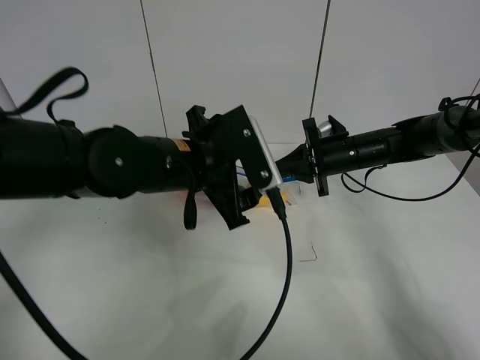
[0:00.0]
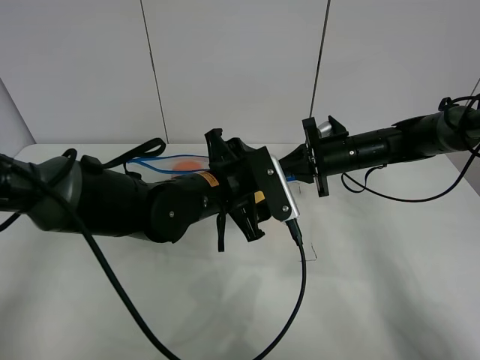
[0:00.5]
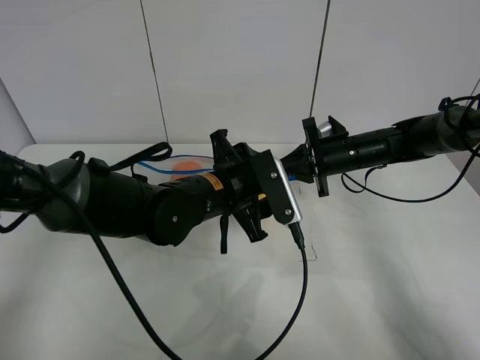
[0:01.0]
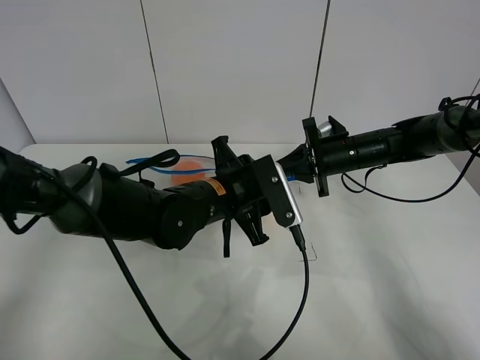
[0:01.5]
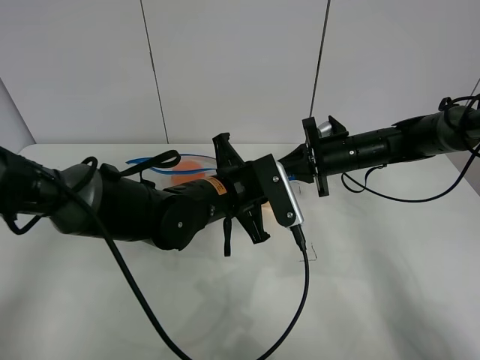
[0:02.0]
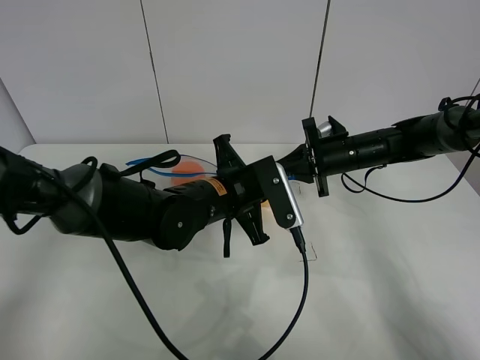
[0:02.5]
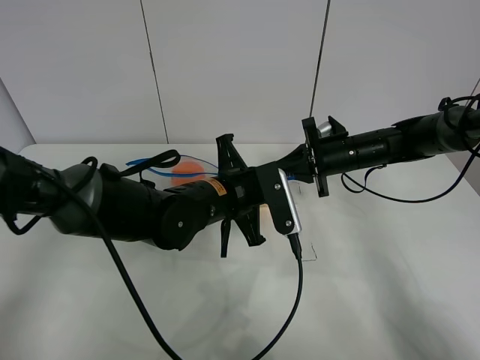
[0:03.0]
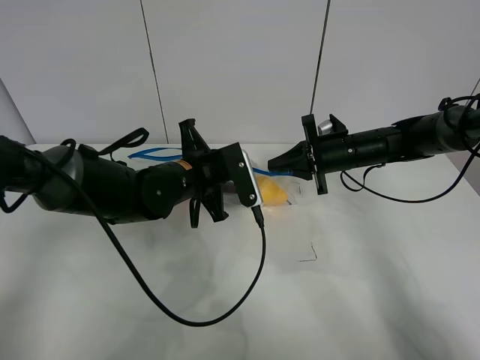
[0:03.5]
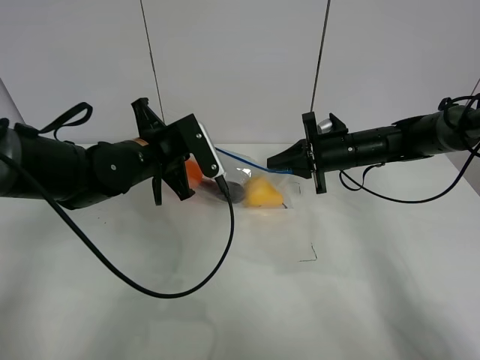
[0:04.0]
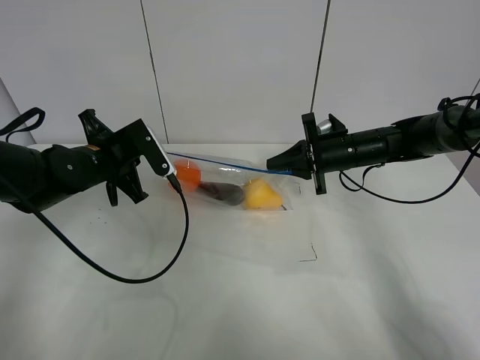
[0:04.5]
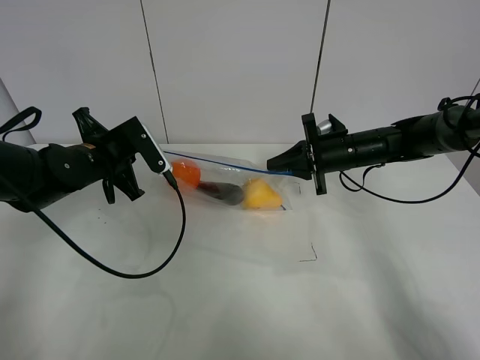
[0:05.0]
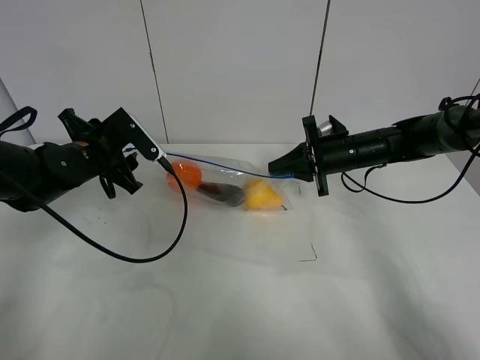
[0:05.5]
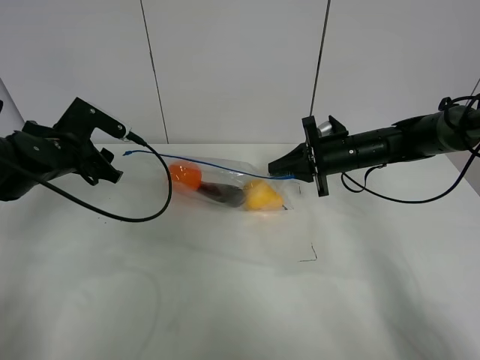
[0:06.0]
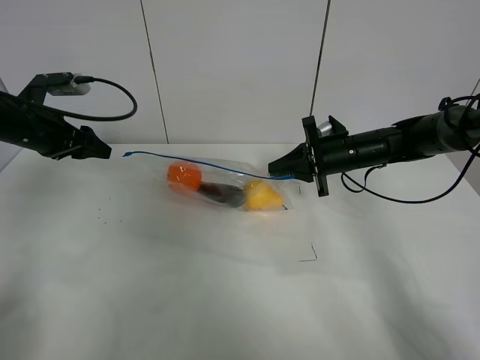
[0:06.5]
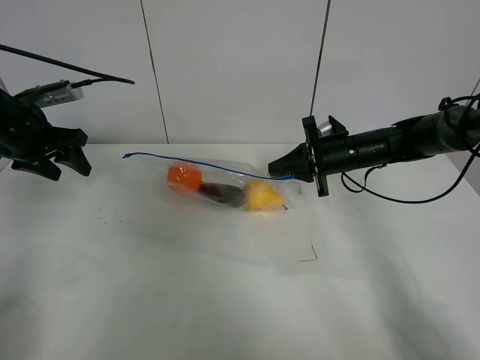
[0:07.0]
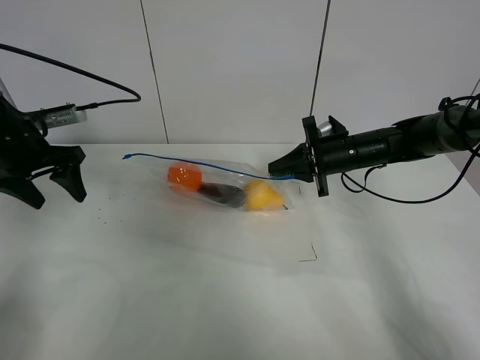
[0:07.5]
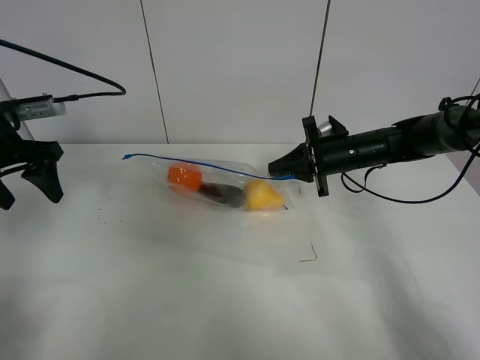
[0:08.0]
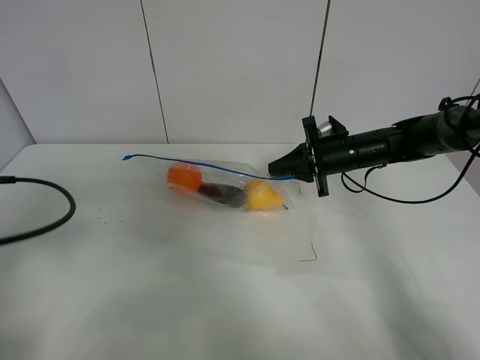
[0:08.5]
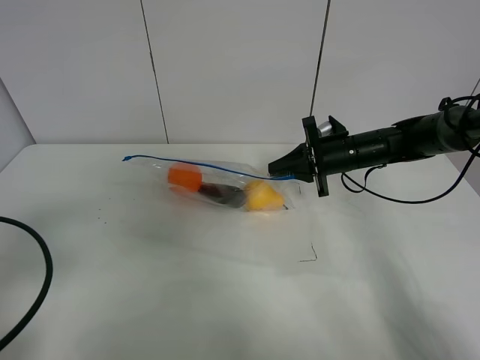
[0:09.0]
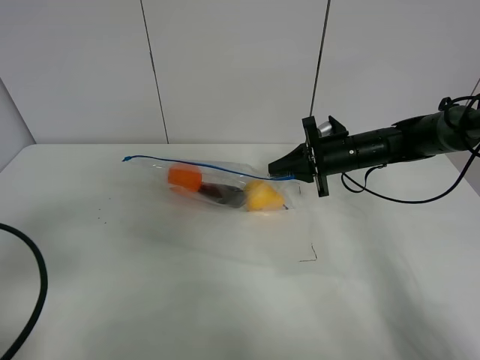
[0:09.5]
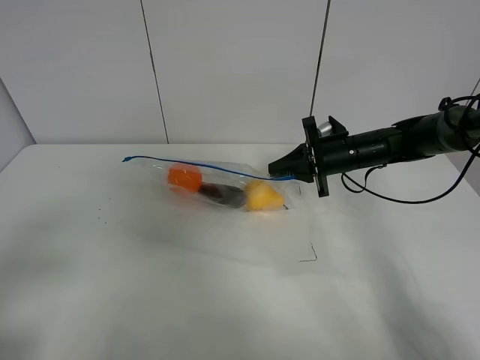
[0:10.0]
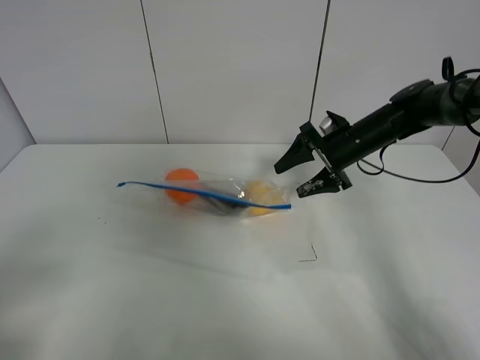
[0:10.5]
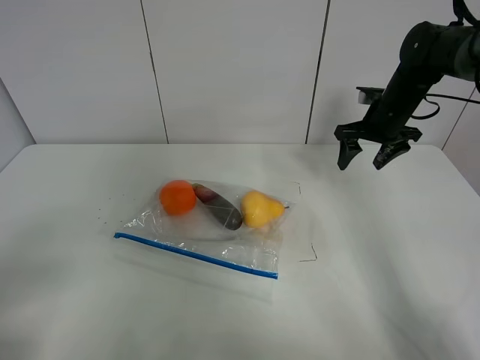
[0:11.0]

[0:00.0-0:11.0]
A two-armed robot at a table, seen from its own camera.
Step, 0:00.0 to 0:05.5: Pull the fruit bag with left gripper.
0:00.0 to 0:02.0: The left gripper is displaced downward by some 5 cm, and closes its fingers.
0:02.0 to 0:03.5: The left gripper travels to the left by about 5 cm.
0:03.5 to 0:05.5: The left gripper travels to the left by approximately 15 cm, and opens.
0:05.5 to 0:07.5: The left gripper goes roughly 10 cm to the left.
0:07.5 to 0:09.0: The left gripper travels backward by roughly 25 cm.
0:09.0 to 0:11.0: The right gripper shifts some 10 cm to the right and upward, and opens its fingers. The left gripper goes approximately 10 cm backward.

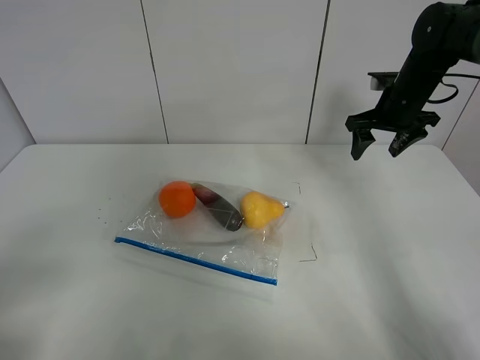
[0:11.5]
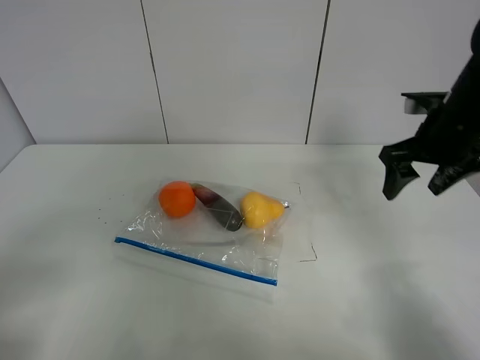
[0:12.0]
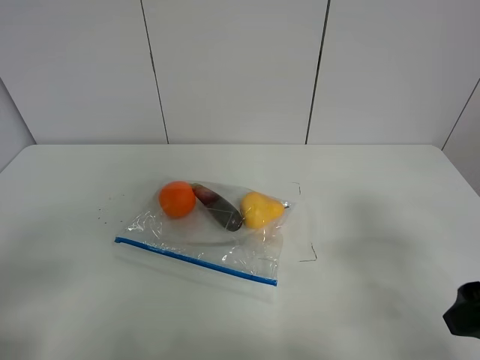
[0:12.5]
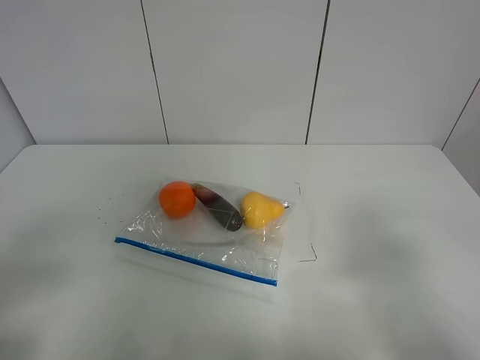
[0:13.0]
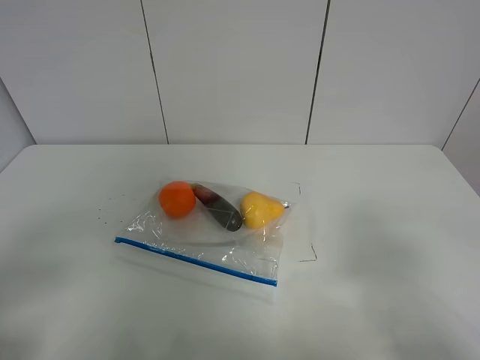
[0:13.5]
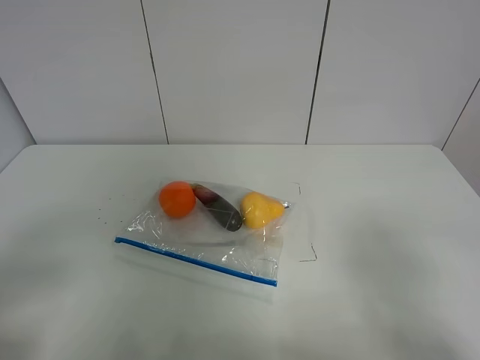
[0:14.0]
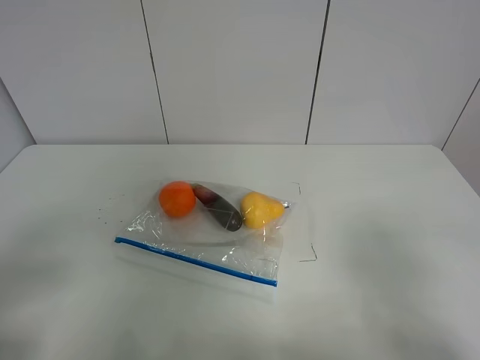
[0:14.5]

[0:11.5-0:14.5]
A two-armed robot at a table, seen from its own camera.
0:11.5 to 0:13.0: The right gripper goes some 40 cm backward.

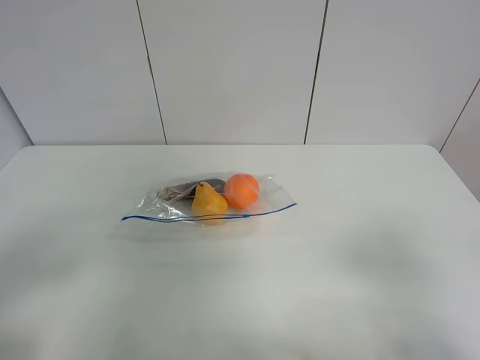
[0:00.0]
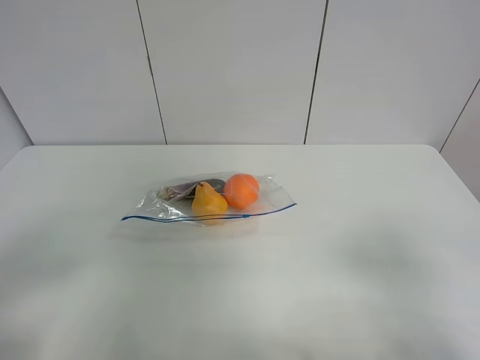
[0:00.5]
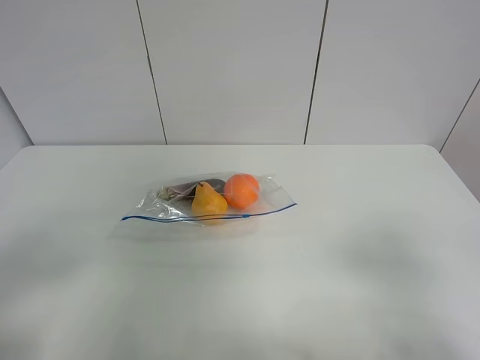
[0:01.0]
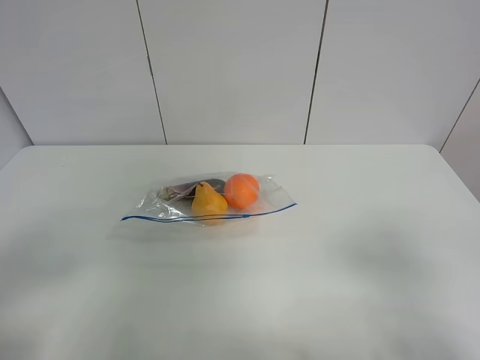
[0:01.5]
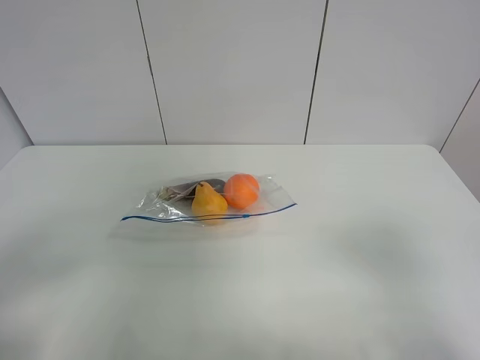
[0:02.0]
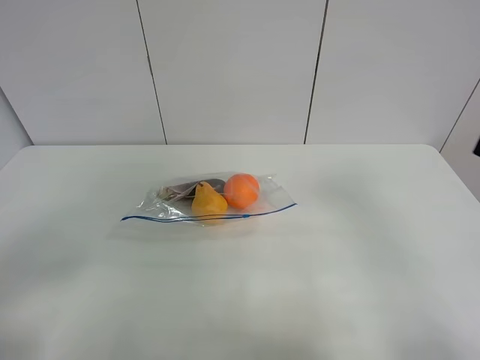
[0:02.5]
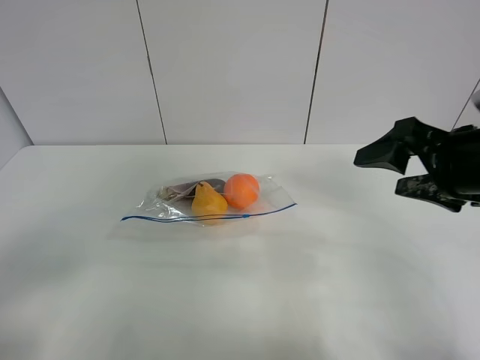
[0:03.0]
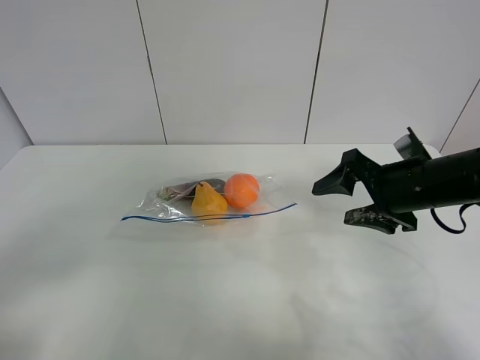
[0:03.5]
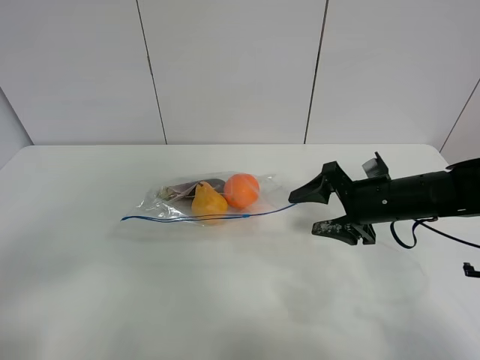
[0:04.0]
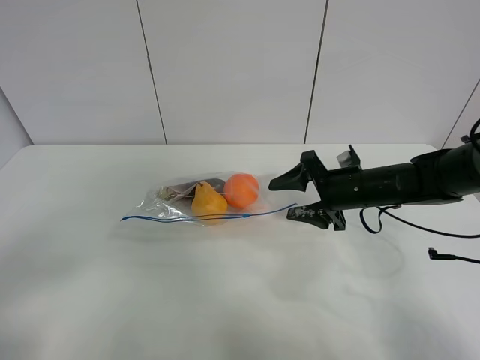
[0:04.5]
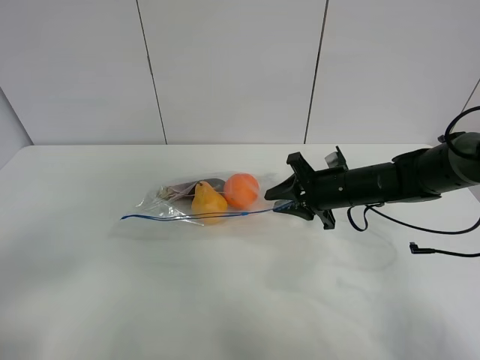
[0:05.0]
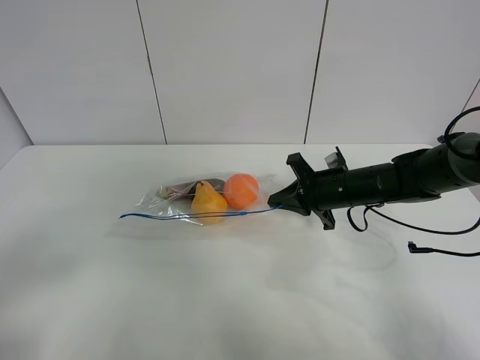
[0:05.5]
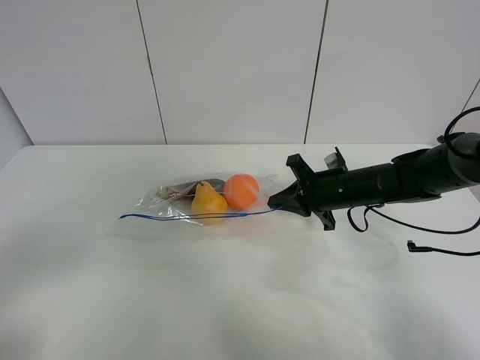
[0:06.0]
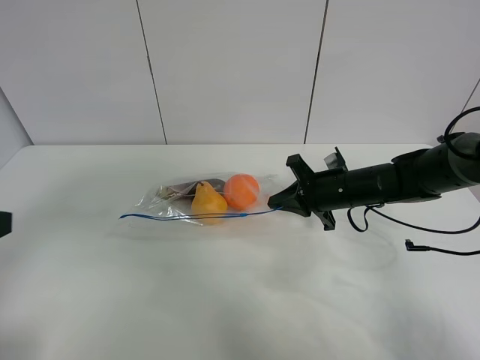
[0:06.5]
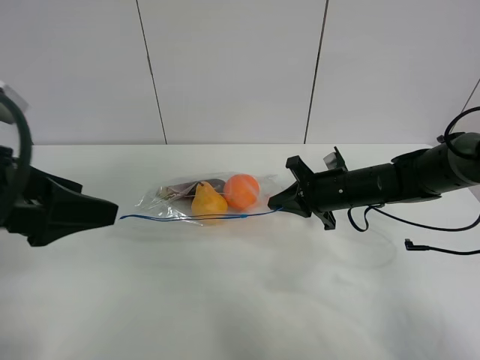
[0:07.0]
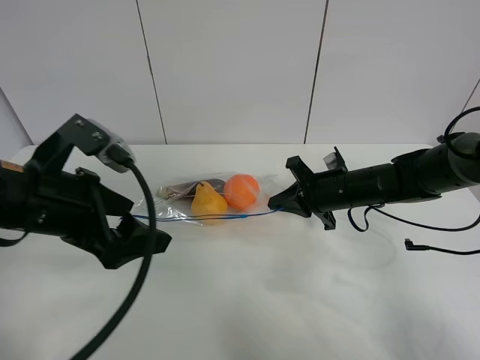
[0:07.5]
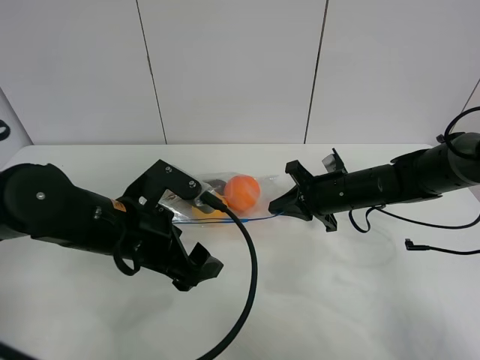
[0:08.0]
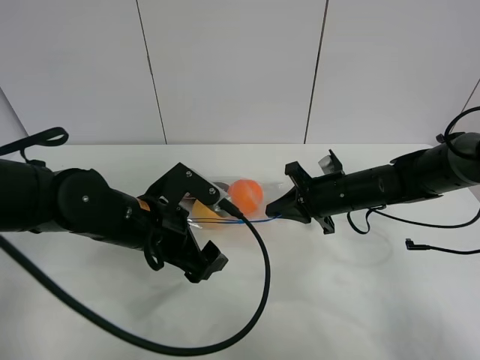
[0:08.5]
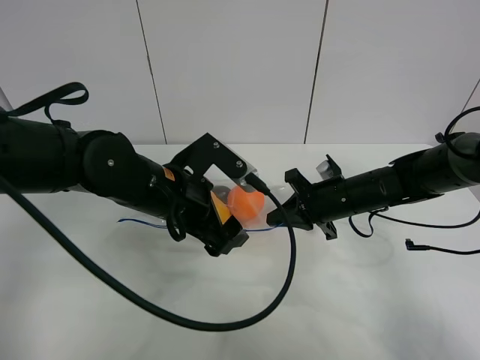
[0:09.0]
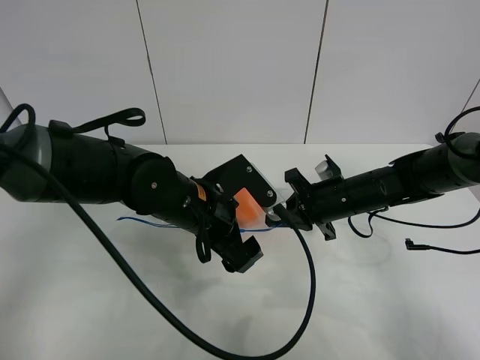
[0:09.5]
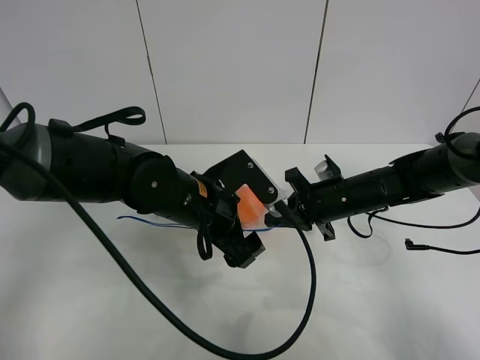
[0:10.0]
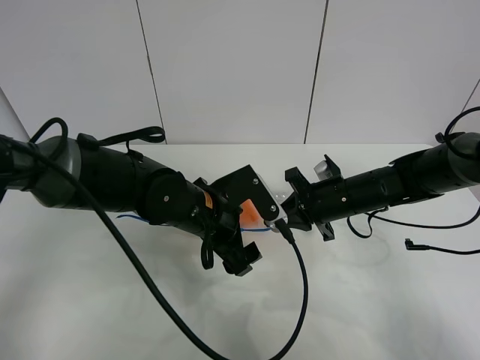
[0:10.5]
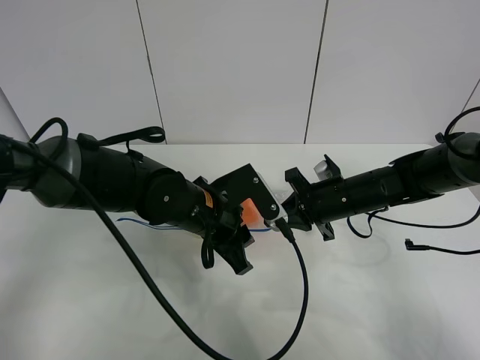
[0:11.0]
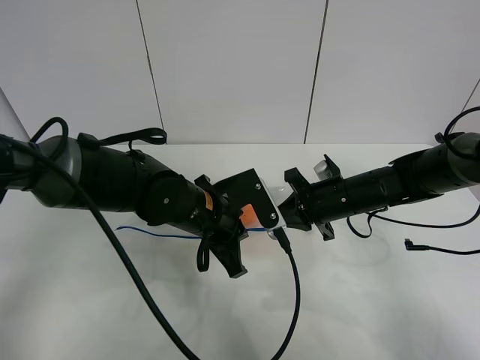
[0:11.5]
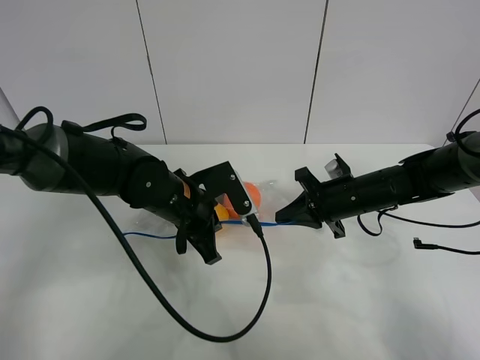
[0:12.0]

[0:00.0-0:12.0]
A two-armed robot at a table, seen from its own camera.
Step, 0:00.0 to 0:05.0: Grasp the fruit bag with right gripper.
0:02.0 to 0:04.0: The right gripper moves forward and downward, roughly 35 cm.
0:04.0 to 0:06.0: The right gripper ends up about 5 cm from where it was, and closes up.
0:06.0 to 0:08.0: The left gripper goes approximately 30 cm forward, to the right and downward.
0:08.0 to 0:10.0: The left gripper shifts approximately 10 cm to the right and forward.
0:10.0 to 0:12.0: The left gripper changes place by about 5 cm, and closes.
